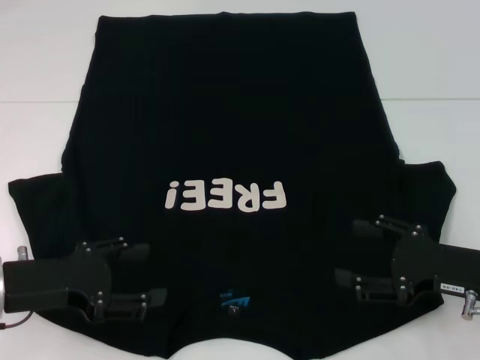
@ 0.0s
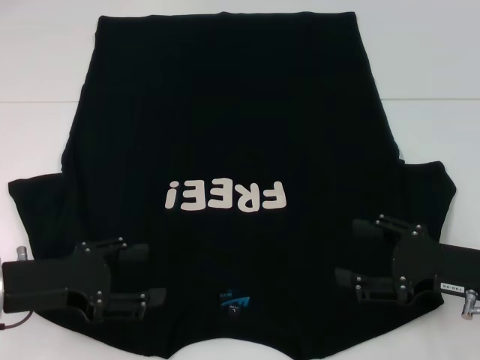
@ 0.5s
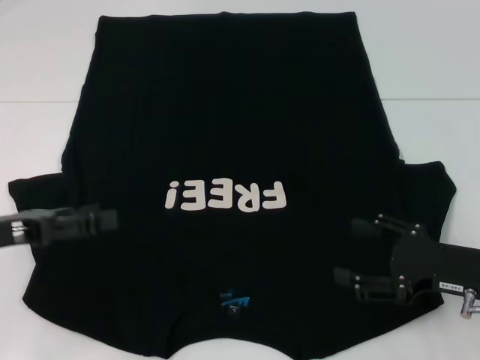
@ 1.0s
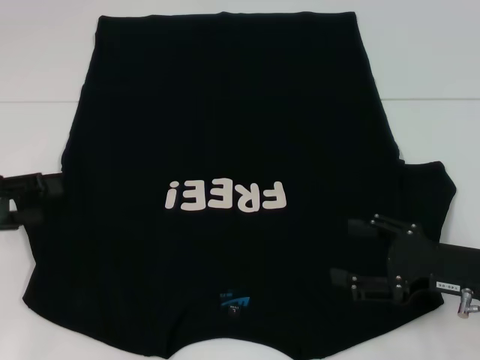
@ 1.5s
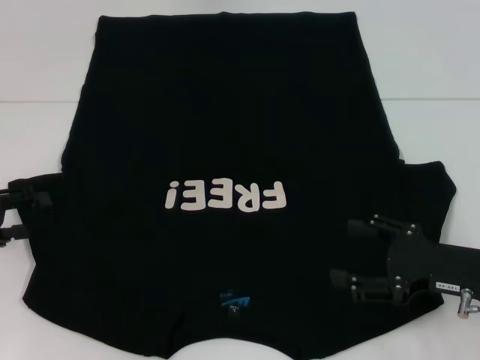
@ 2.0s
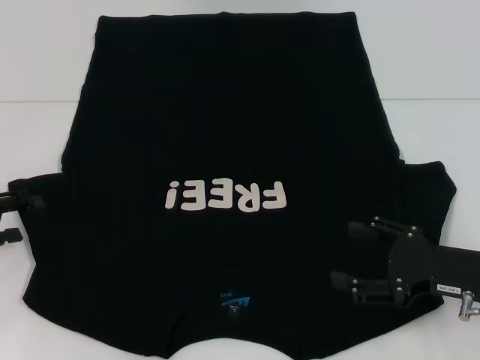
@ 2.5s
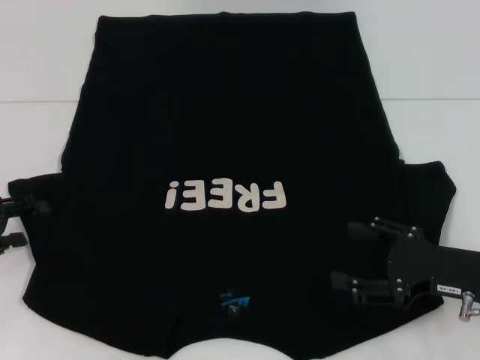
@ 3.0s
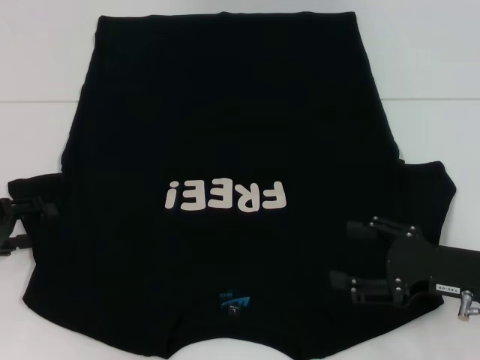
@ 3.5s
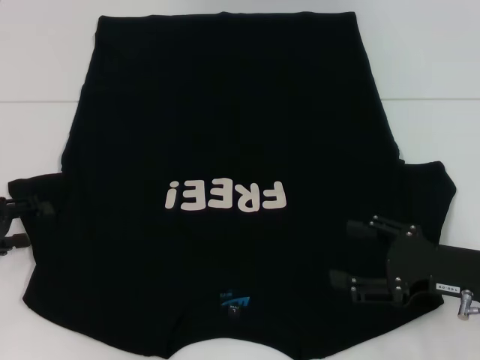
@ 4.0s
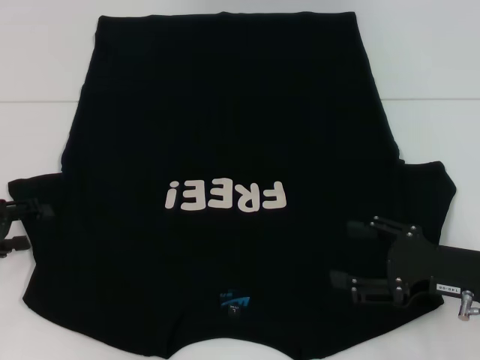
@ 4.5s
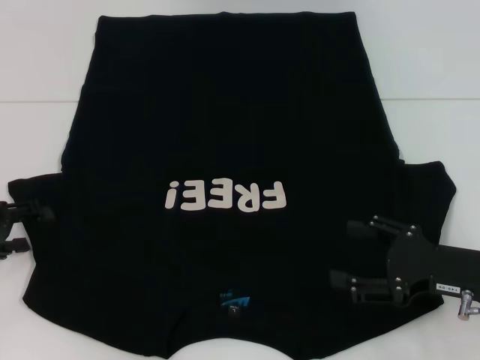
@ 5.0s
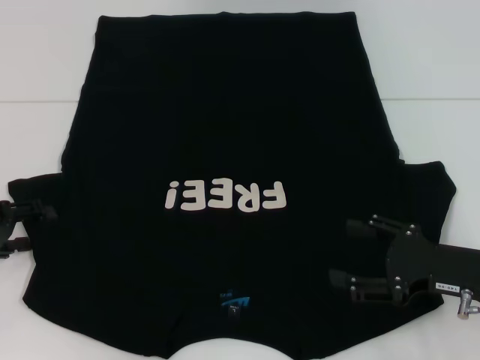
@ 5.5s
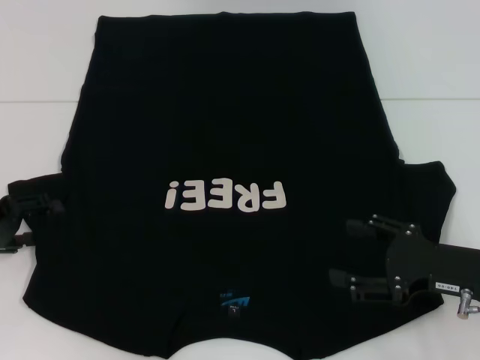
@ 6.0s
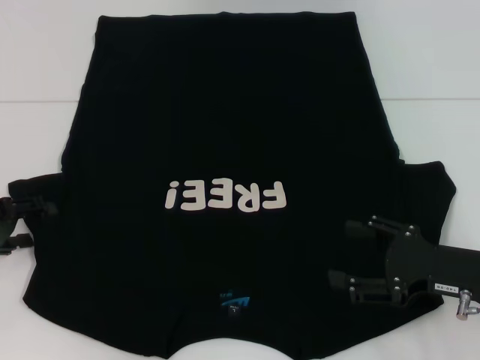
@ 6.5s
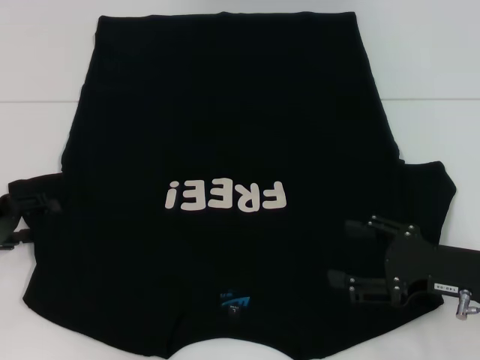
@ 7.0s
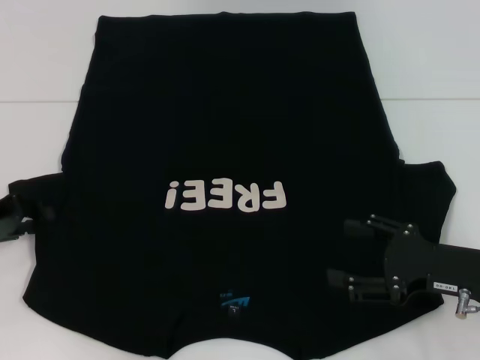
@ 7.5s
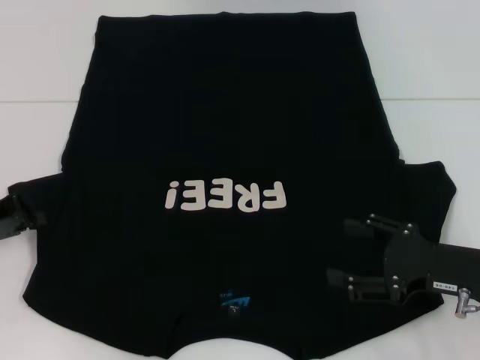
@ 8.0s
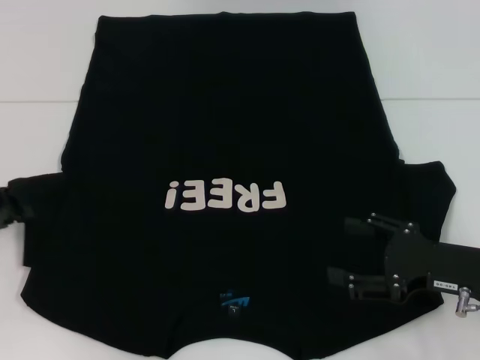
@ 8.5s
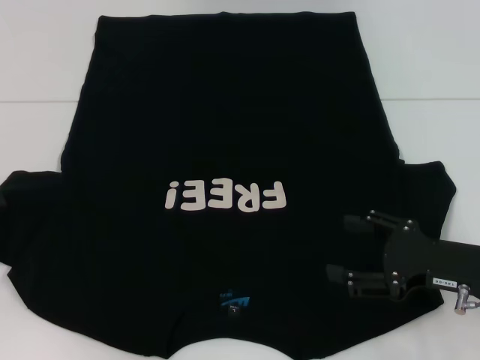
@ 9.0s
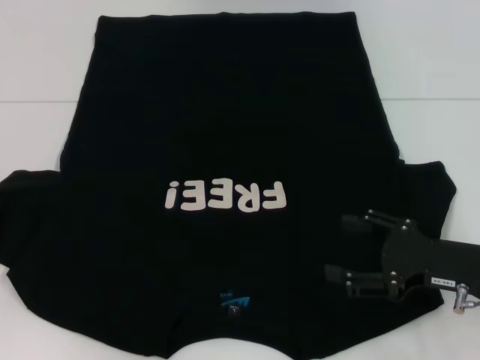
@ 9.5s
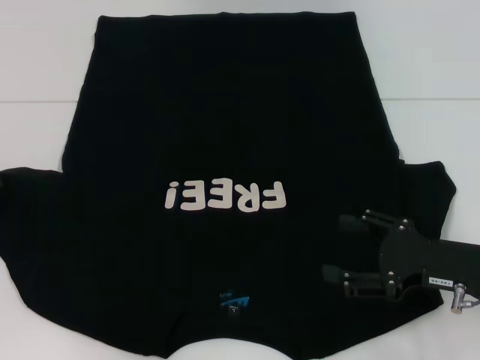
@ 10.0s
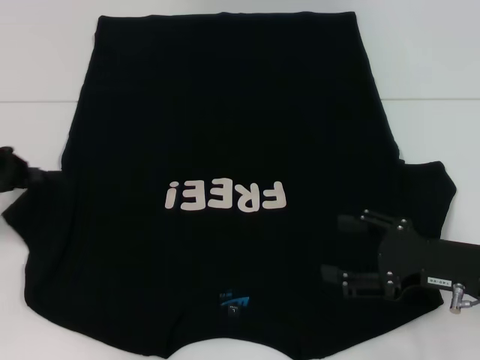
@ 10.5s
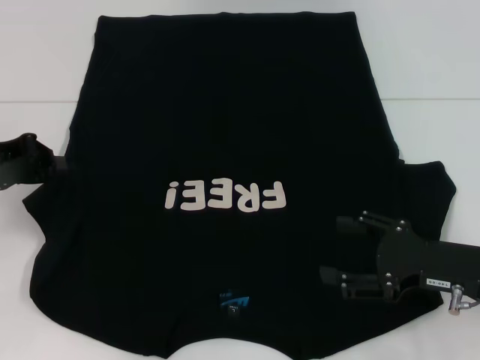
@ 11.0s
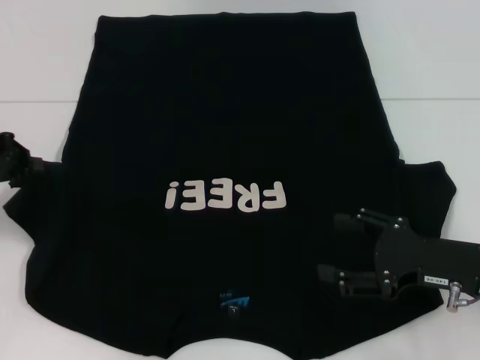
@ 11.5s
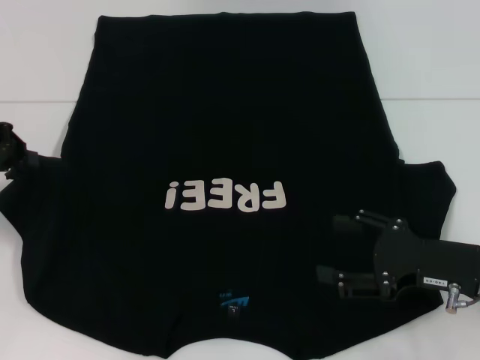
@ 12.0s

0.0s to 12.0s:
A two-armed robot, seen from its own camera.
0.0s to 2.0s: The left gripper heads to the left, covering roughly 10 cm.
4.0s to 6.0s: Neither gripper changes place.
6.0s to 8.0s: The left gripper closes its fingers.
8.0s to 10.0s: The grippers make only small movements.
10.0s to 12.0s: The left gripper is displaced upward by roughly 5 cm.

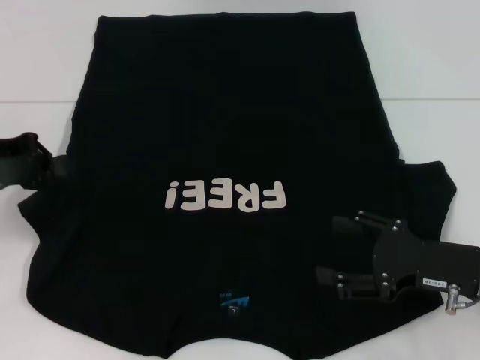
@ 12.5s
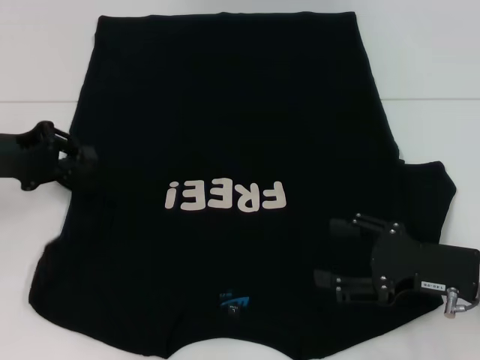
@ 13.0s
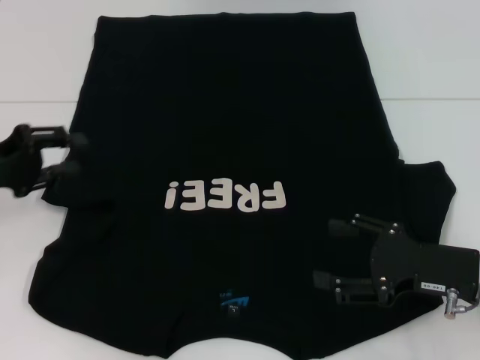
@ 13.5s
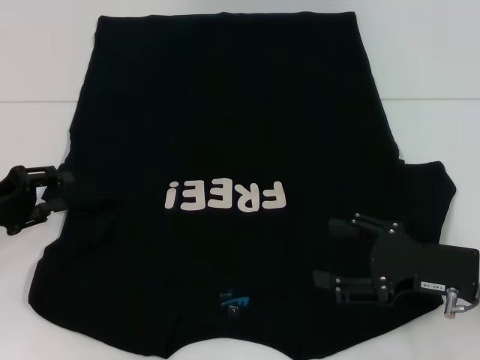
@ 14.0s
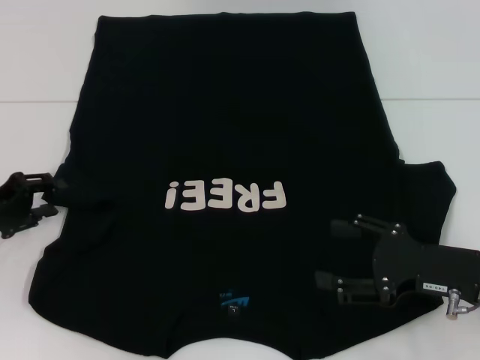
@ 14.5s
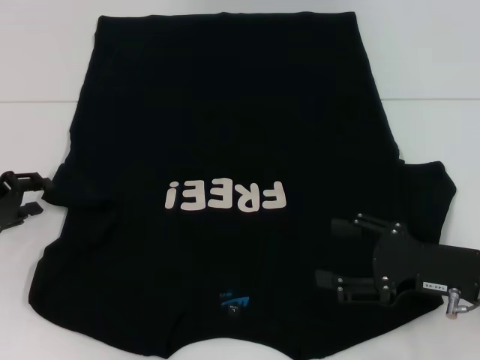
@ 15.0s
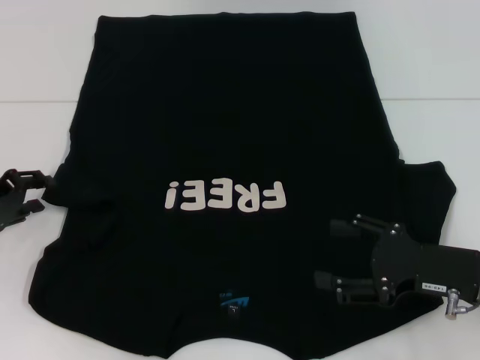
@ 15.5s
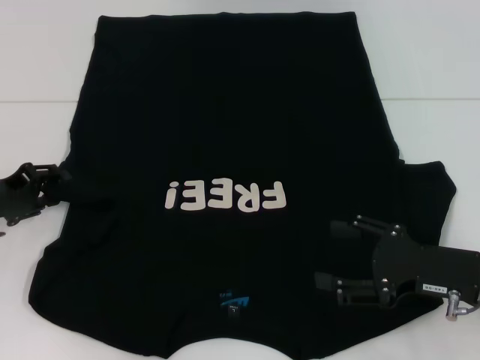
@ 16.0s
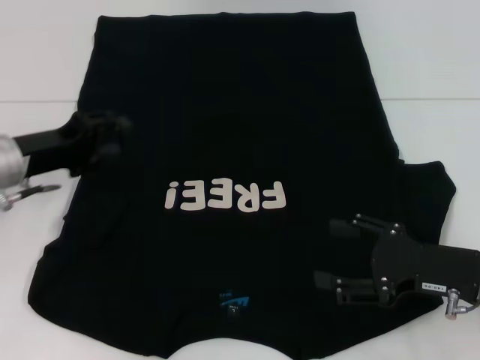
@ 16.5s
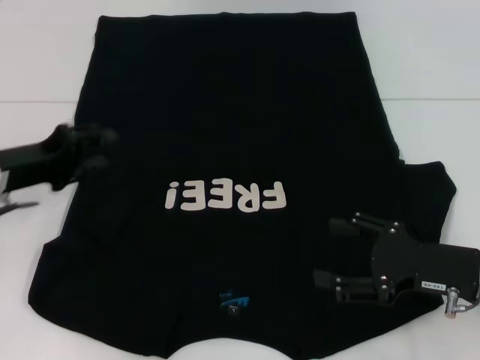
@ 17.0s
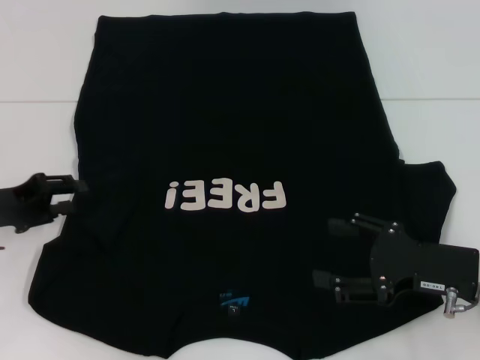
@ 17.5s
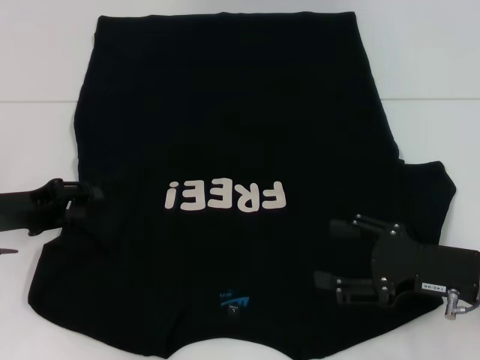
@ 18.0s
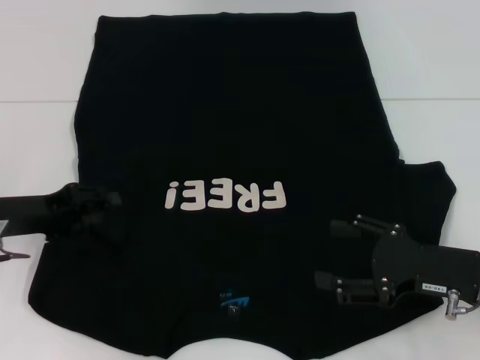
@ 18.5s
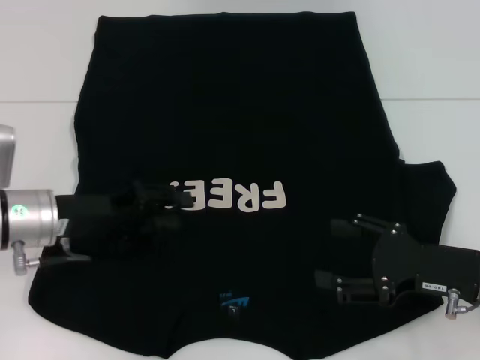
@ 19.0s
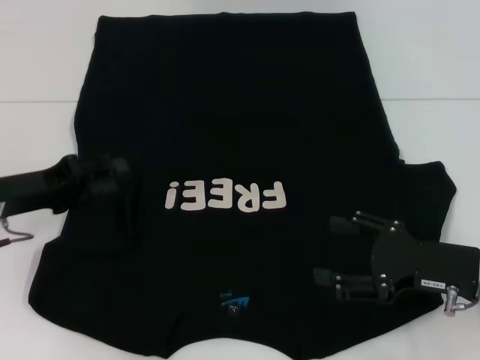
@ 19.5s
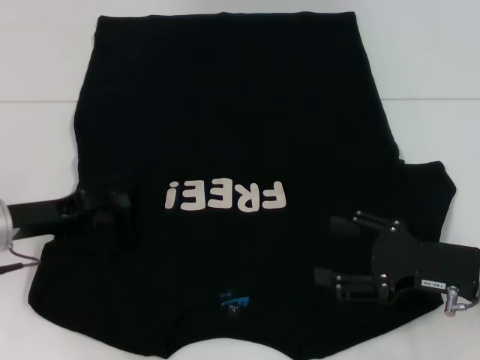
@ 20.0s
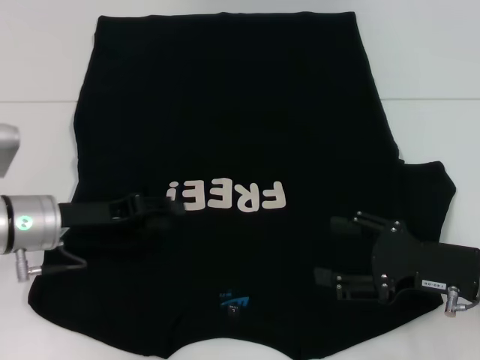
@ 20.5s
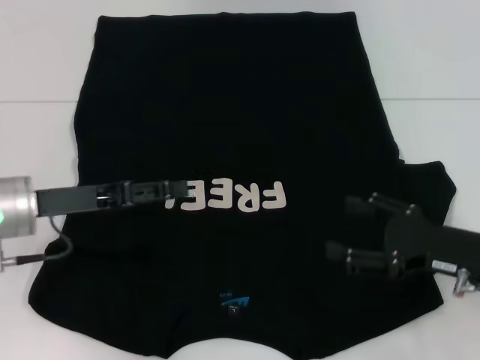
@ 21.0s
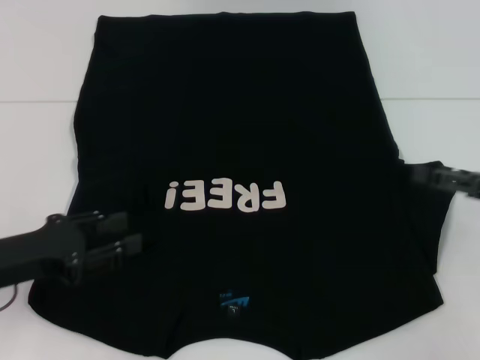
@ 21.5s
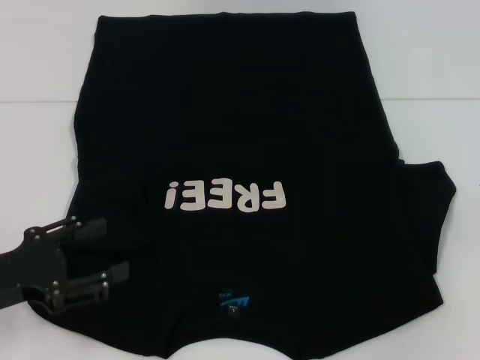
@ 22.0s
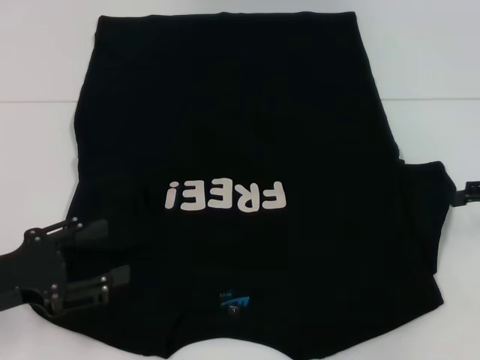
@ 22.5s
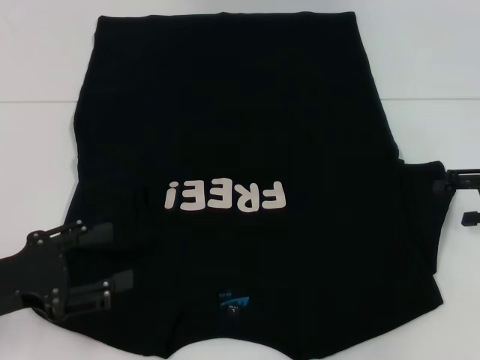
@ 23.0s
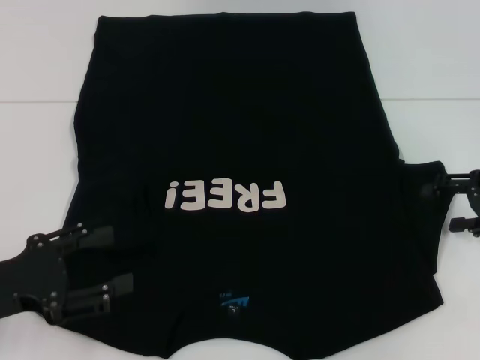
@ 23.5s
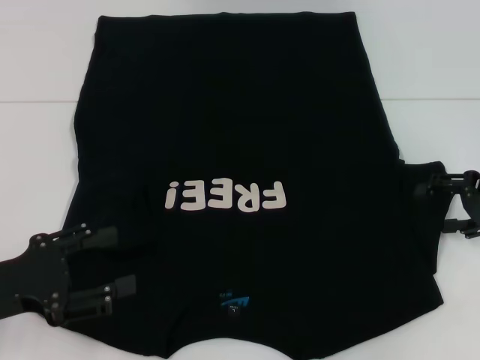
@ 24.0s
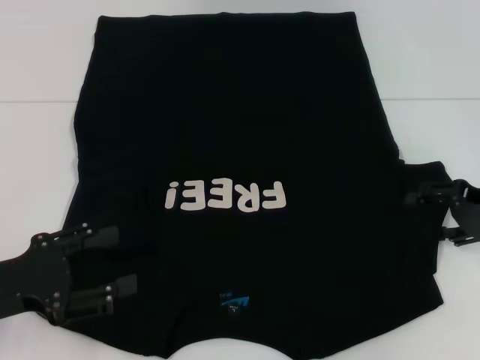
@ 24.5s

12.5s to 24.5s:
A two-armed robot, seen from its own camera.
Step, 12.5s to 17.5s: Fold the bottom left sleeve with your left hand.
12.5s to 14.5s: The left gripper heads downward, covering about 10 cm, and opens up.
14.5s to 16.5s: The left gripper is displaced to the right by some 5 cm.
16.5s to 18.5s: The left gripper shifts by roughly 5 cm.
18.5s to 20.5s: The left gripper swings left and right, some 5 cm each way, with 2 reversals.
20.5s to 22.5s: The left gripper goes some 10 cm backward and to the left. The right gripper travels to the right, forward and upward by roughly 15 cm.
22.5s to 24.5s: The right gripper changes place by roughly 5 cm.

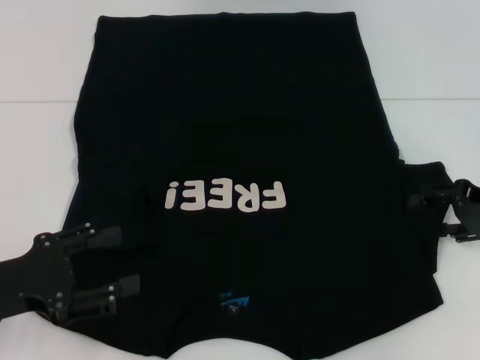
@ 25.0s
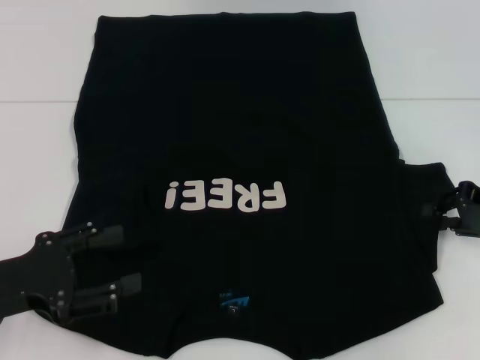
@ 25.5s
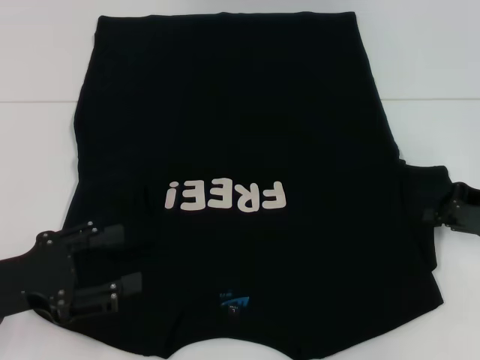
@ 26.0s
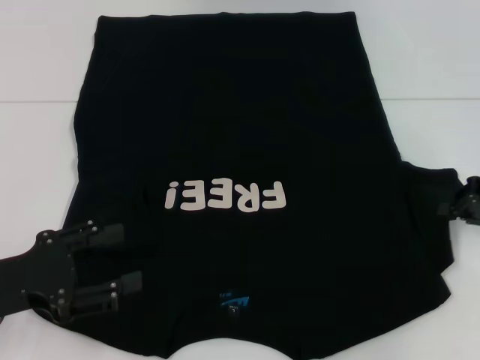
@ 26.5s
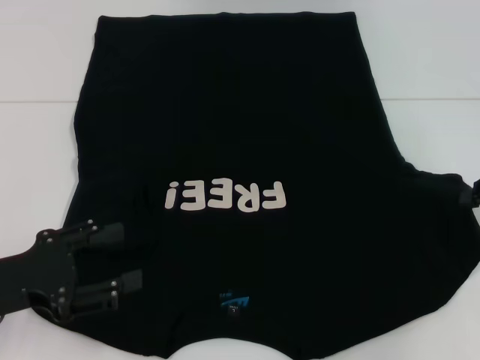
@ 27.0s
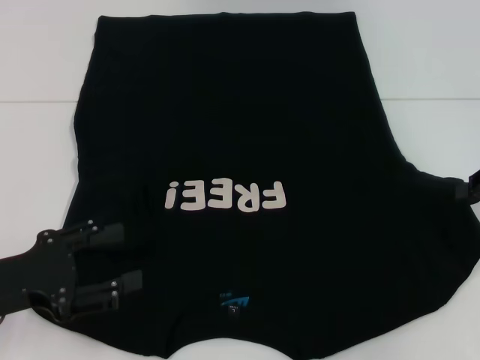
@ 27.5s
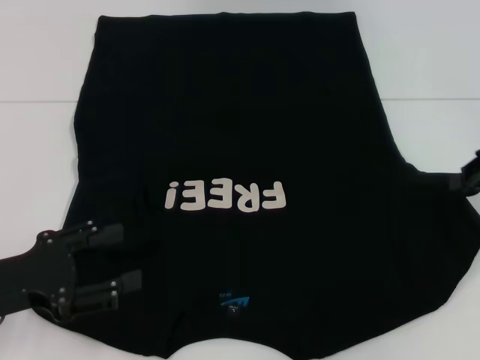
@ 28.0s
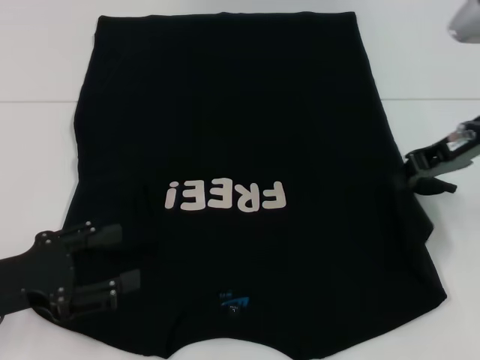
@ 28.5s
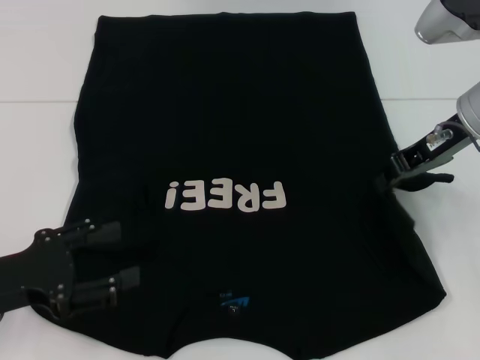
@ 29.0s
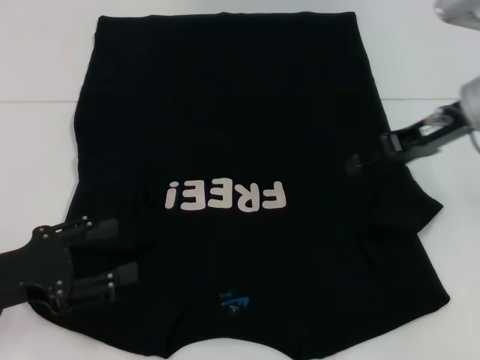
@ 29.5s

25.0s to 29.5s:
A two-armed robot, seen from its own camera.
25.0s to 27.0s: The right gripper closes.
27.0s to 29.5s: The right gripper goes approximately 15 cm to the left, forward and upward, and opens up.
